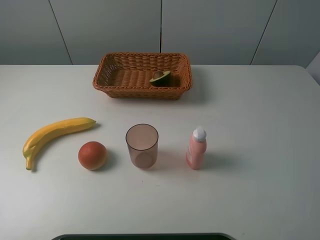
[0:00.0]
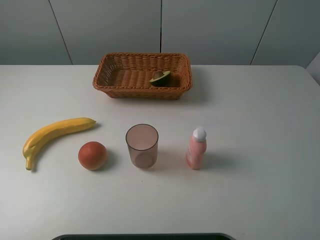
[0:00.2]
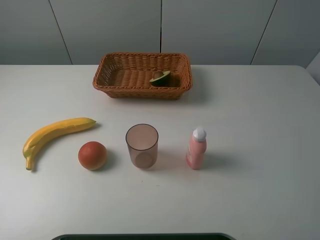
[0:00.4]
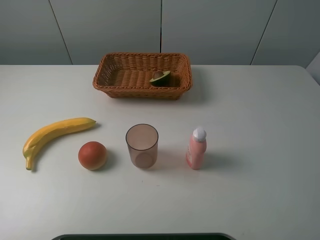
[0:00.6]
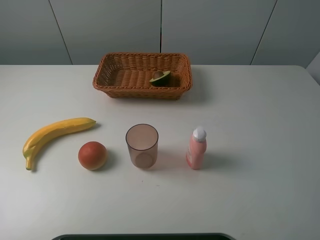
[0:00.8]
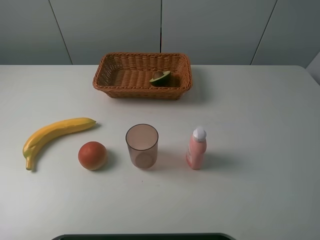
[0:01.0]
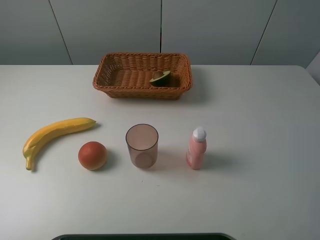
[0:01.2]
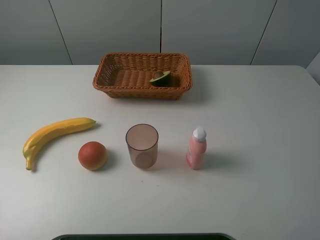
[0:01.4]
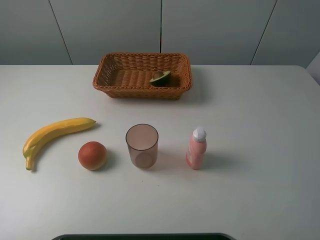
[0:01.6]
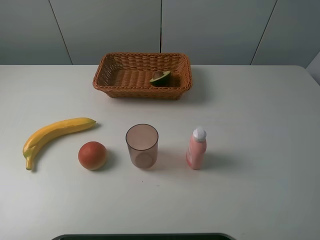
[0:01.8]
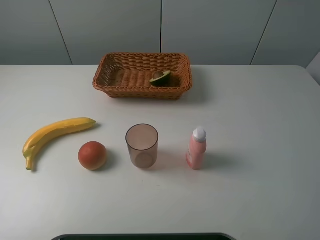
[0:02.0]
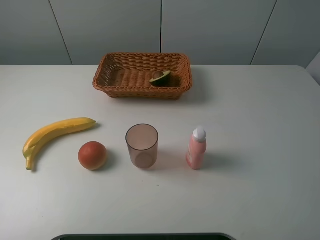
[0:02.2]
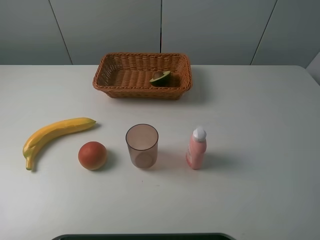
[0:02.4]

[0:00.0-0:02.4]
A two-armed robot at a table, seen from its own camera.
Task of the whole recording: randomly pick up an item from the table and put it in the basket.
0:01.2 to 0:02.4: Both grippers stay put.

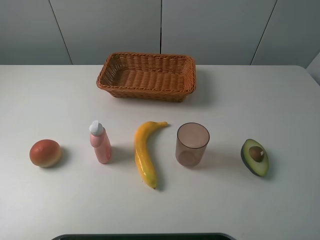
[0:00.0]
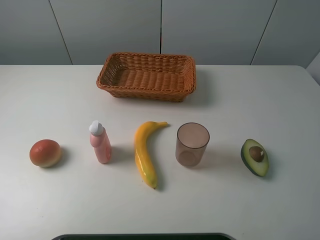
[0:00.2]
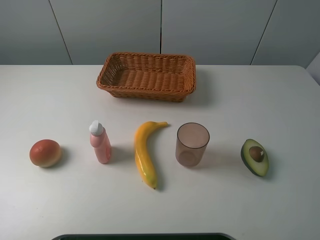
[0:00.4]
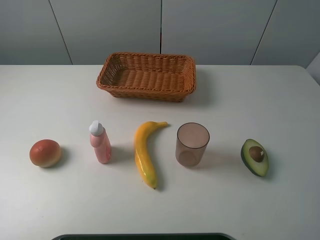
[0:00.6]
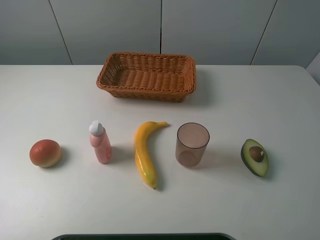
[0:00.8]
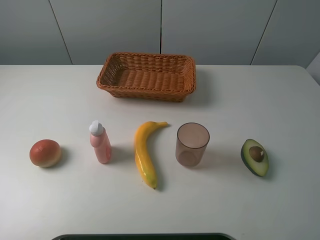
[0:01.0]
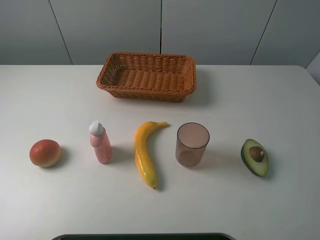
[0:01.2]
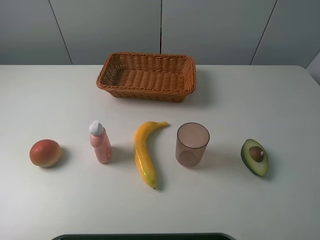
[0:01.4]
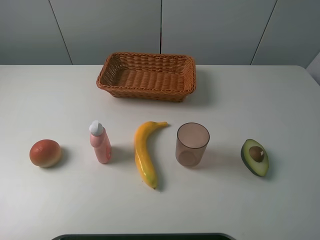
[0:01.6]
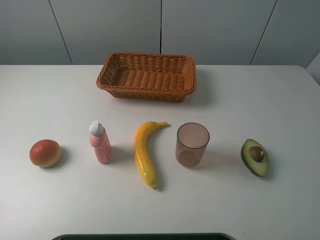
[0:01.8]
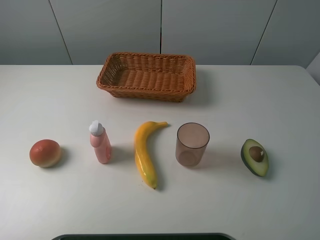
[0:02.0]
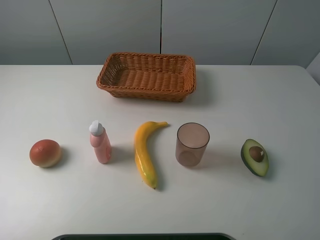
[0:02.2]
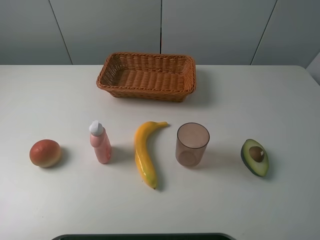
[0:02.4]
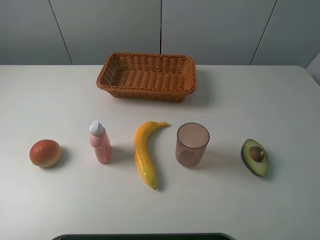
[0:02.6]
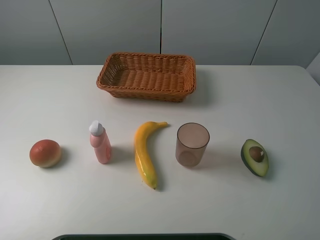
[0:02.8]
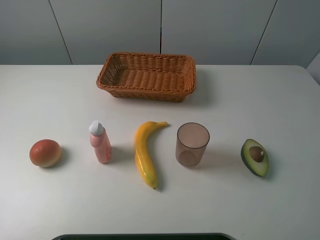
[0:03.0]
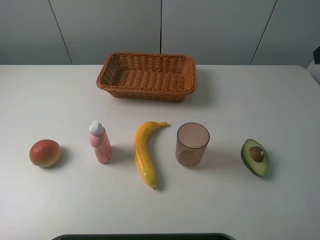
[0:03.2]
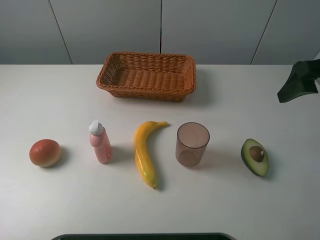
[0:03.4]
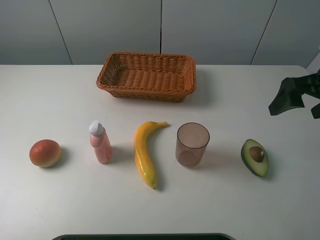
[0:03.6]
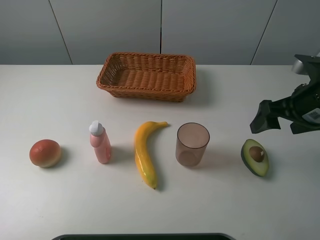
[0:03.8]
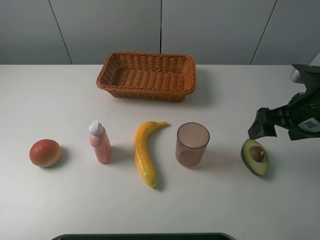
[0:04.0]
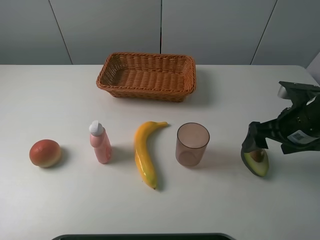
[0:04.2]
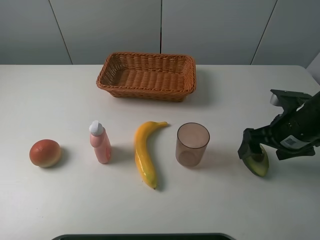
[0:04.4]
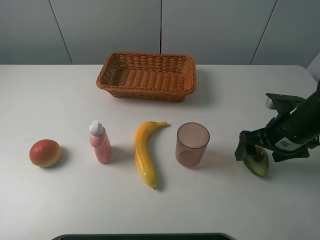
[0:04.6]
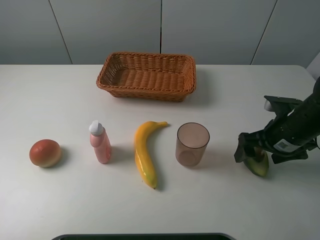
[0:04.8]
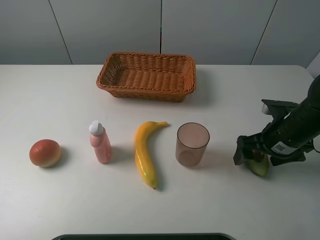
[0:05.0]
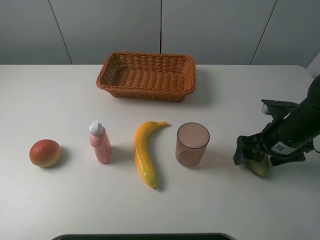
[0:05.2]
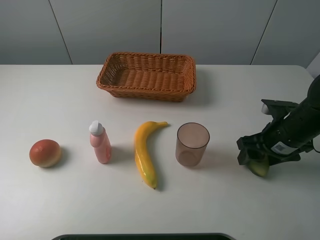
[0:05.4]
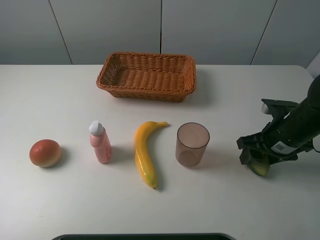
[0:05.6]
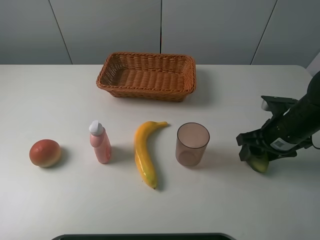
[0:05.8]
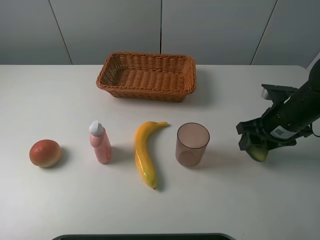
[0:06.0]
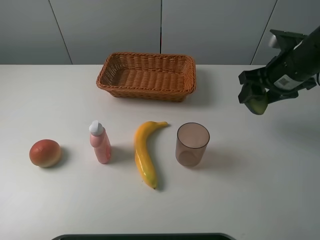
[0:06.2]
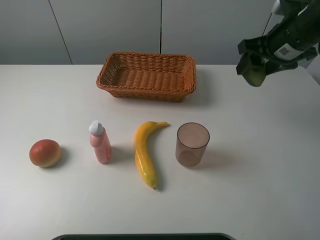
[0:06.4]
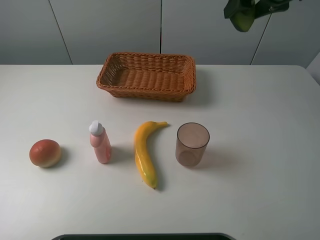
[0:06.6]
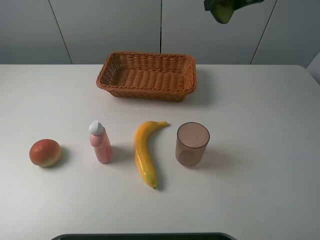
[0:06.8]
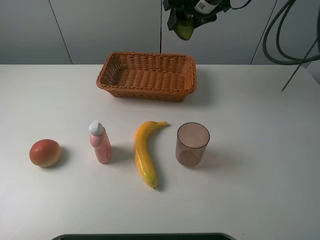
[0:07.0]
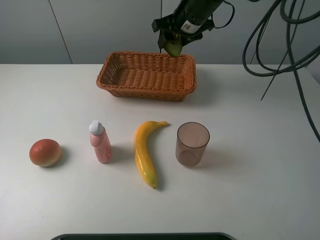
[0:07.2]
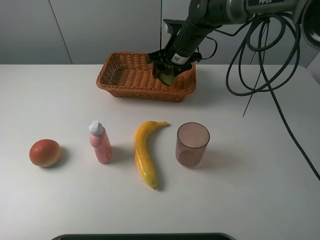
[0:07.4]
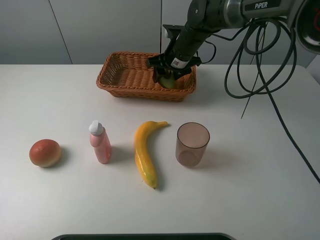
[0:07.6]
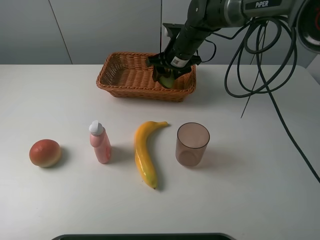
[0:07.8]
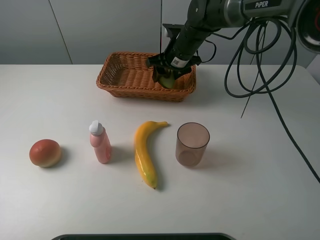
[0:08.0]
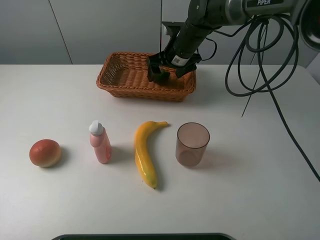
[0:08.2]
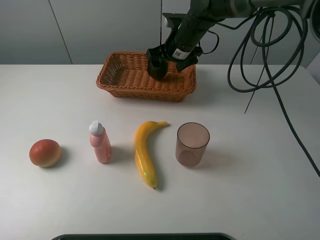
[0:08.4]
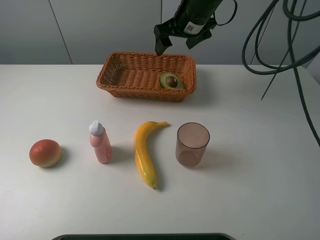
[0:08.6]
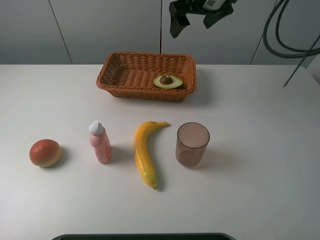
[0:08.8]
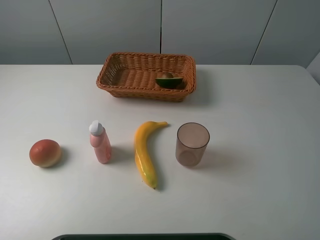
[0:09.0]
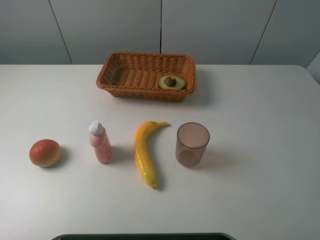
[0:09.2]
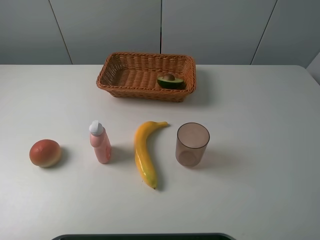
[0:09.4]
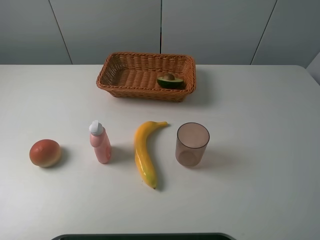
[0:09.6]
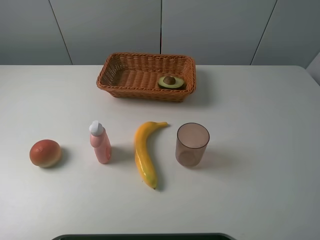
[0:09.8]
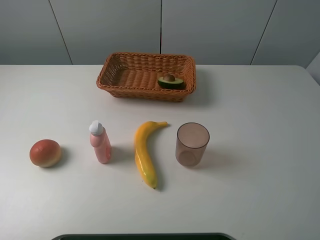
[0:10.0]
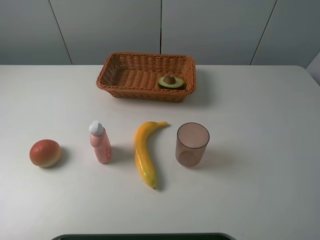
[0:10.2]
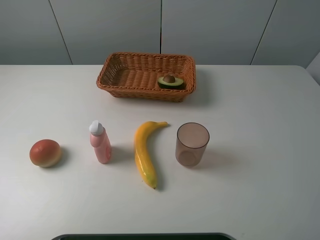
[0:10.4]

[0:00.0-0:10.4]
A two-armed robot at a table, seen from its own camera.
Task of the whole recording: randomly pick up an item from the table and put it in the basket.
Step, 0:00.0 to 0:05.6: Grasp the avocado with the right gripper.
Step, 0:05.8 to 0:08.4: Place the avocado into the basket with the right gripper.
0:00.0 to 0:01.4: Neither gripper changes place.
0:03.0 to 0:04.4: The right gripper moves downward, roughly 25 cm.
0:04.4 to 0:06.0: The right gripper closes up.
0:06.0 to 0:07.4: The right gripper goes some 25 cm forward and to the left.
0:07.4 to 0:09.0: The right gripper heads upward and to the right, covering about 30 cm, and opens.

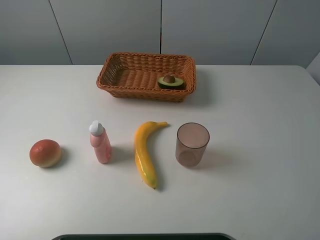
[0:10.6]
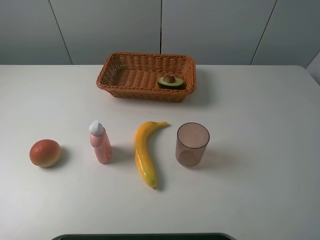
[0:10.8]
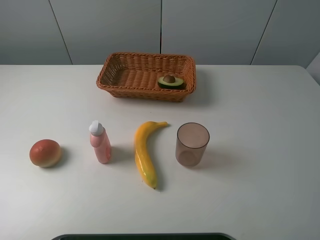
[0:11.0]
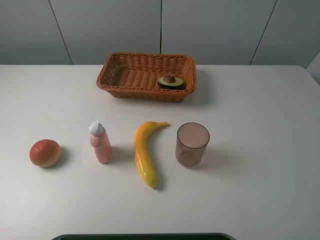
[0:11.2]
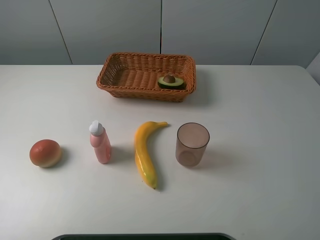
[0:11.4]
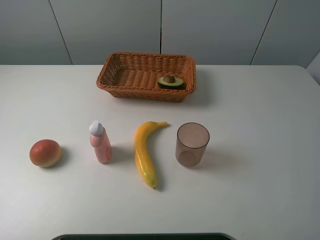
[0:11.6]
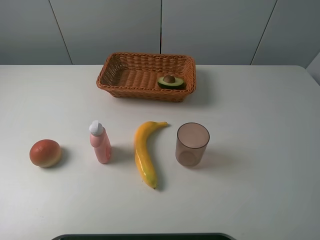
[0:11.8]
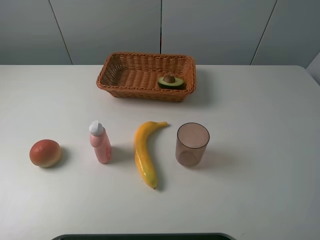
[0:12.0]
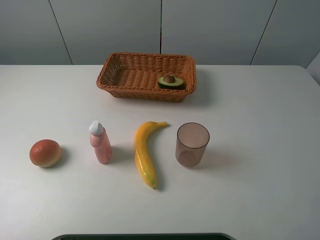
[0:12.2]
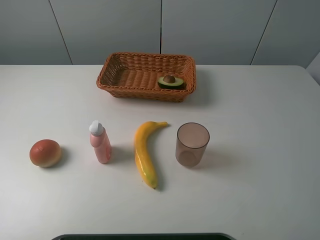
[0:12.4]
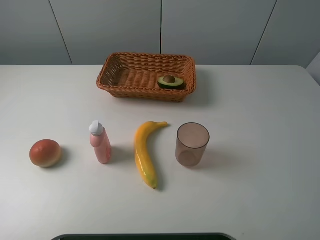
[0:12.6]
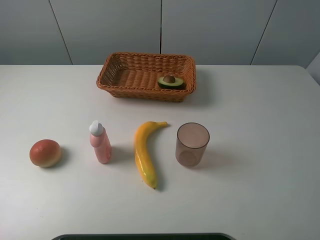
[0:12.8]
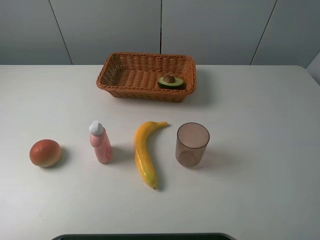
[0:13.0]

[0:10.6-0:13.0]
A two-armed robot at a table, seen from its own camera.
Task of the whole recording: randomly pick up an item from the table and put it in the basket.
0:11.8 to 0:13.0: Both grippers stay about where they are.
